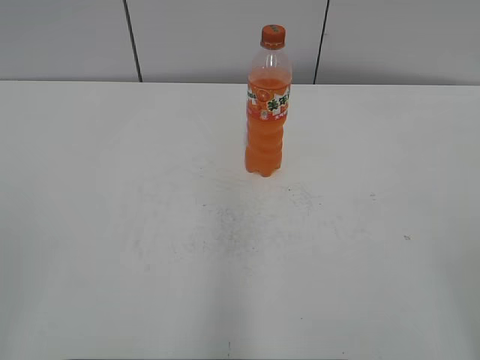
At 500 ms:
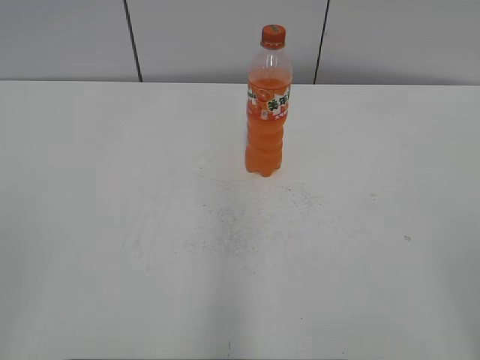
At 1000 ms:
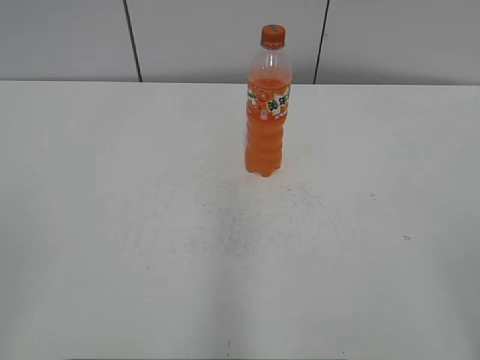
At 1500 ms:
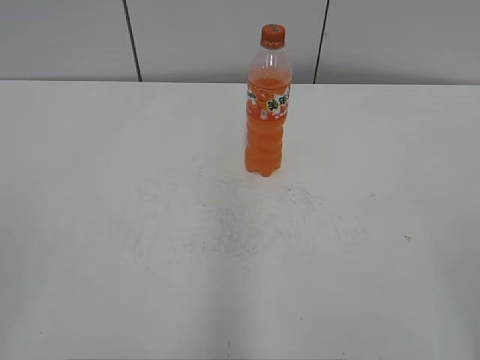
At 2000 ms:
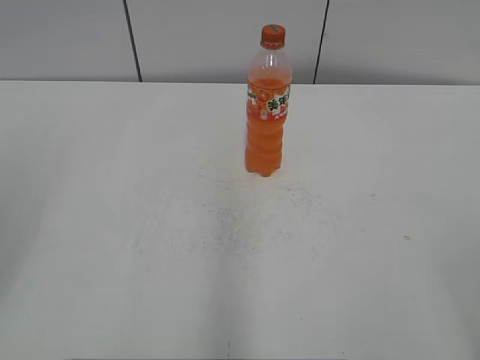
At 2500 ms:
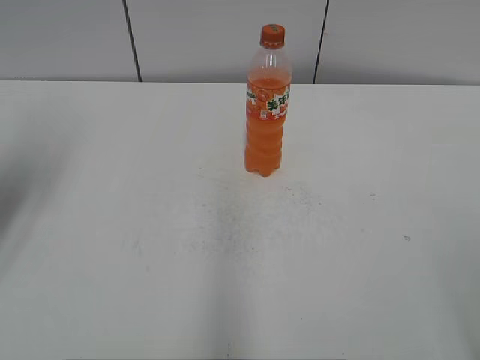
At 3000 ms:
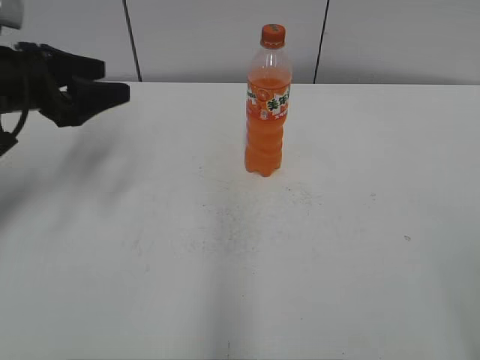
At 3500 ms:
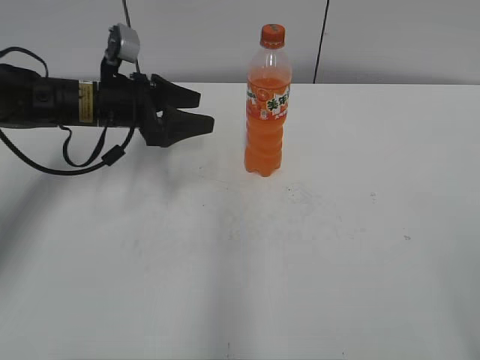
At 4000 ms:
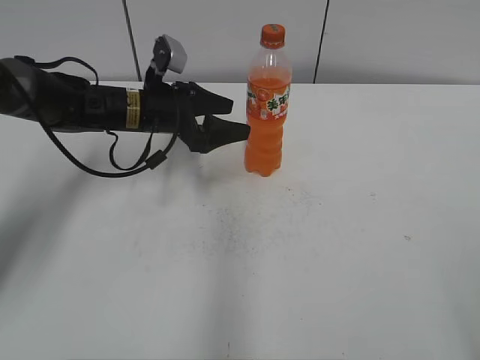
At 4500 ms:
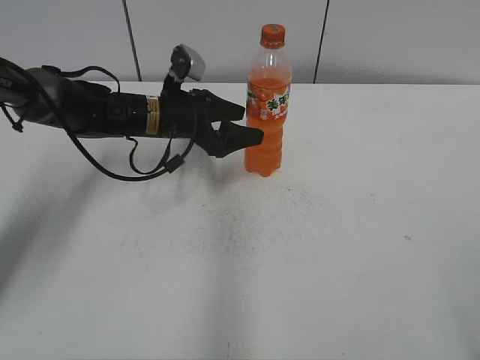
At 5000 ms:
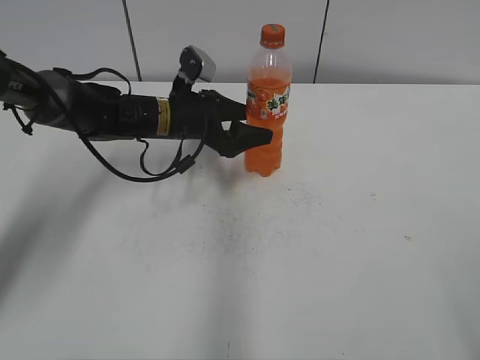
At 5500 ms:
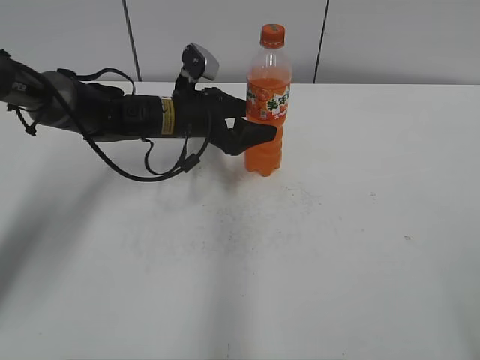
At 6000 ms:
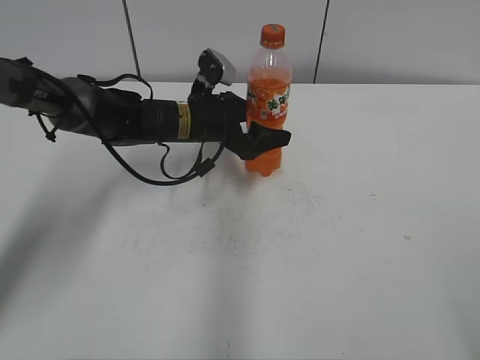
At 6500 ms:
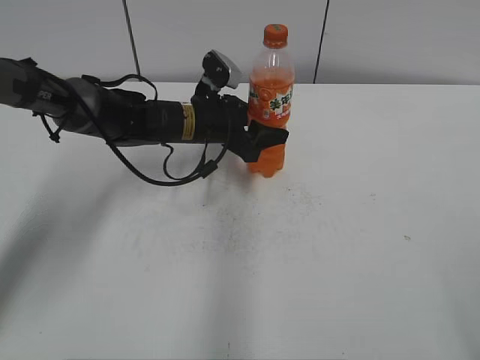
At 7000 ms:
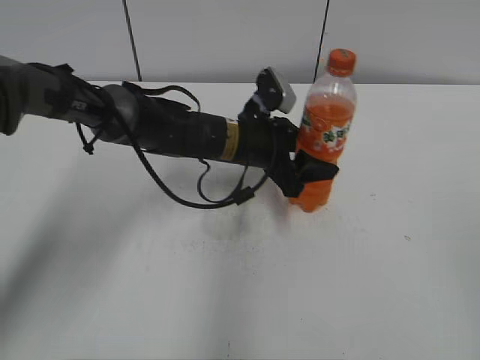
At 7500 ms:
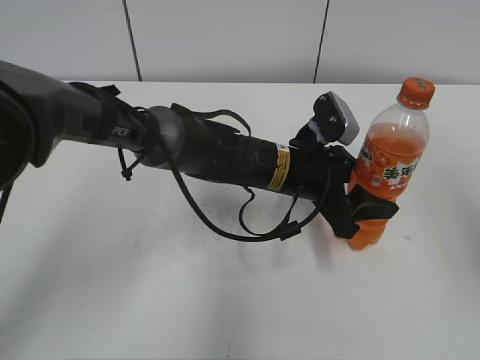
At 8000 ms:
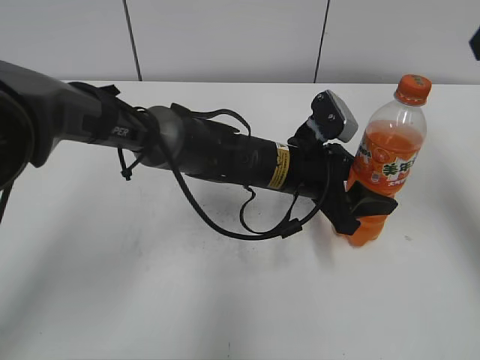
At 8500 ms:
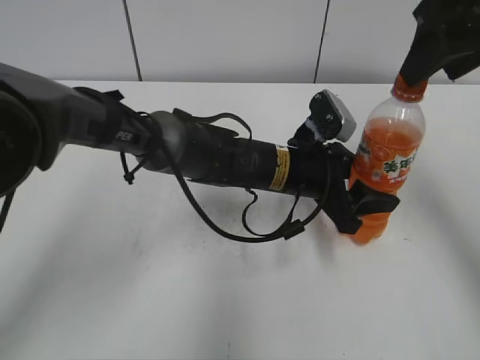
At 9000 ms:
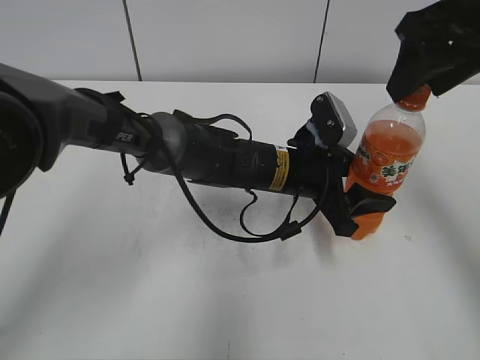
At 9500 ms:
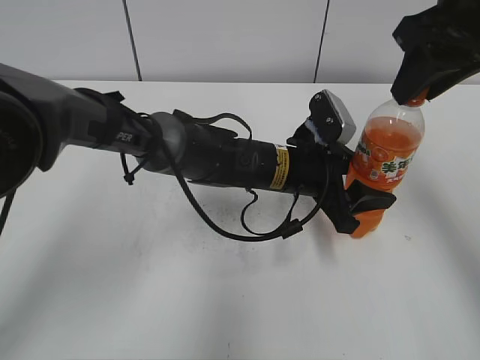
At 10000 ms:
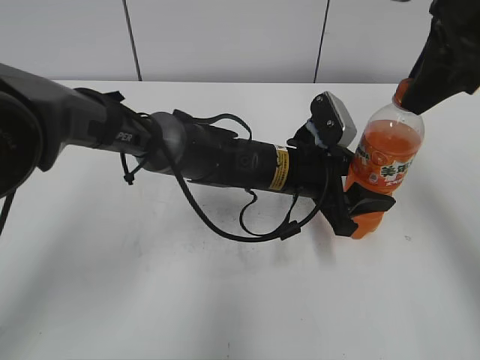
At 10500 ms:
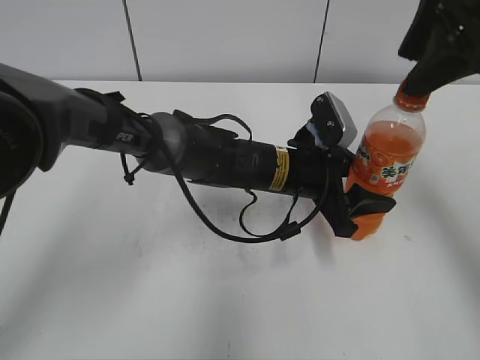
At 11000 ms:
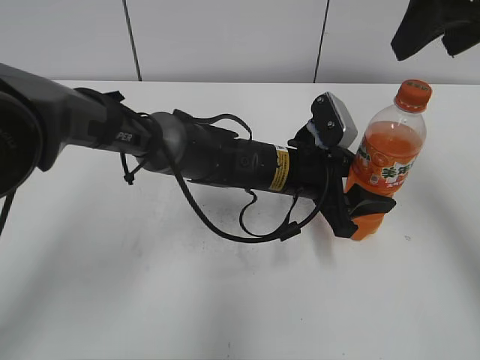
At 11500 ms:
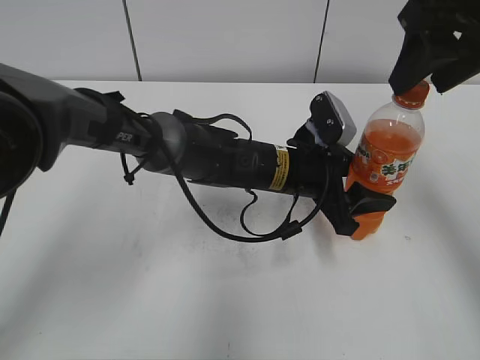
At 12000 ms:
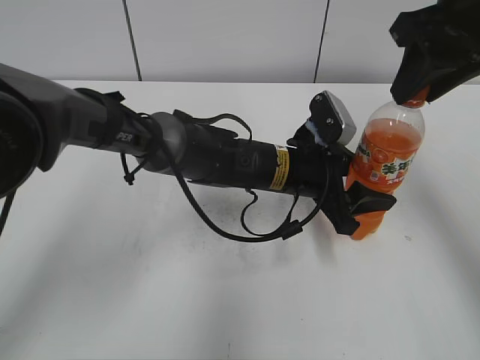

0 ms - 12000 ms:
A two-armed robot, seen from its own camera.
Step, 0 ms - 6000 ms: Grab the Mirinda with the left hand.
Step, 6500 ms - 7000 ms: Move the Mirinda from left to right.
2000 ms - 4000 ms: The left gripper shifts some 40 cm forward, downward and to the right.
4000 ms - 6000 ms: The left gripper travels to the right by roughly 5 cm.
6000 ms - 8000 ms: The left gripper travels to the right and backward by roughly 15 cm, and closes its fingers. Meanwhile the right gripper shifts some 30 cm forward and upward.
8000 ms - 10000 ms: The right gripper moves downward, roughly 5 cm, and closes up.
10000 ms - 12000 ms: The right gripper opens, then closes once more.

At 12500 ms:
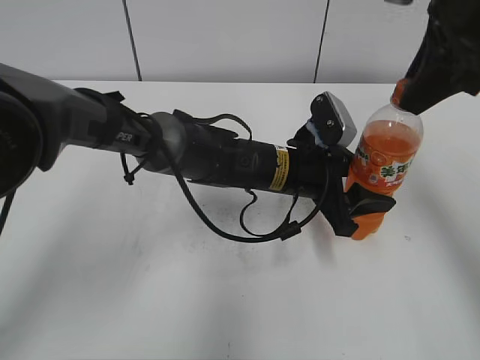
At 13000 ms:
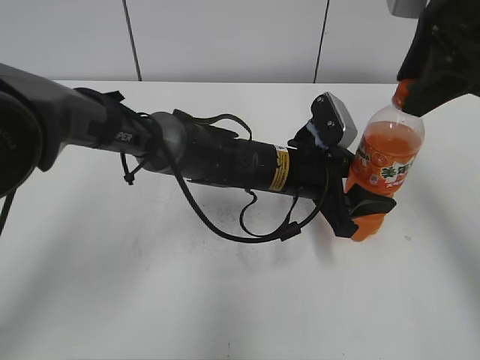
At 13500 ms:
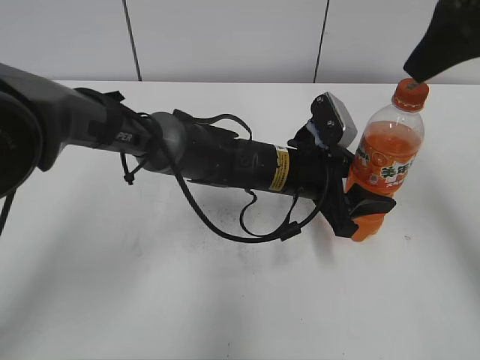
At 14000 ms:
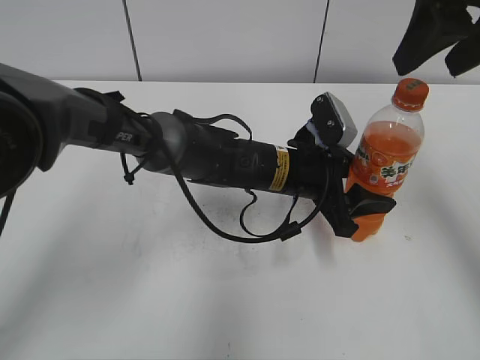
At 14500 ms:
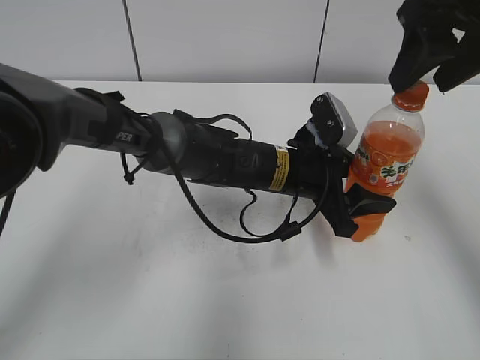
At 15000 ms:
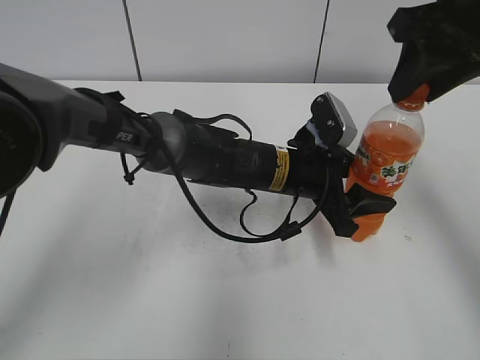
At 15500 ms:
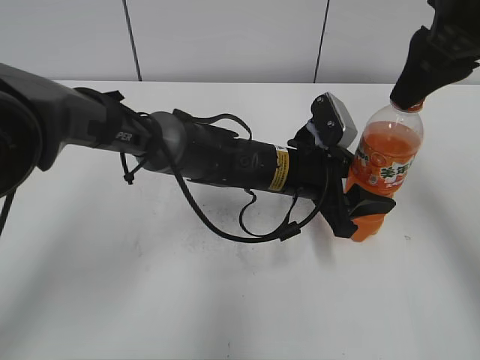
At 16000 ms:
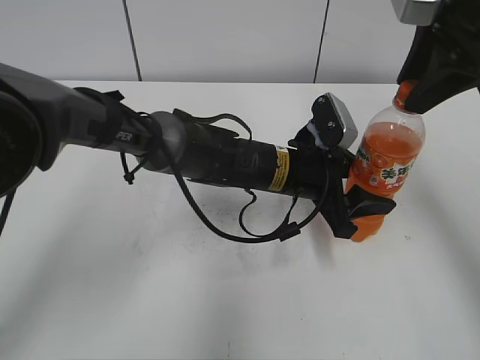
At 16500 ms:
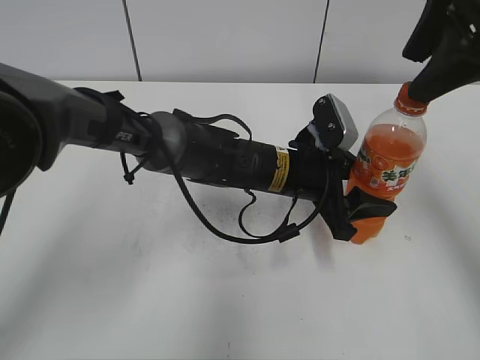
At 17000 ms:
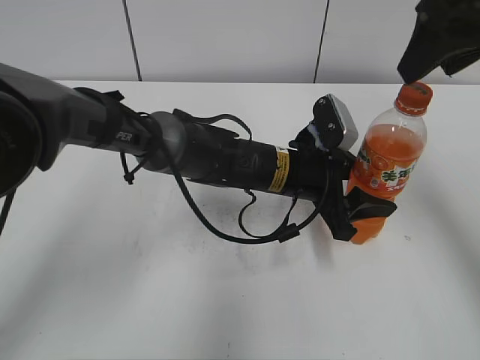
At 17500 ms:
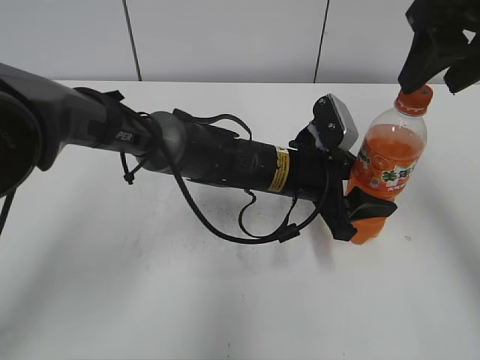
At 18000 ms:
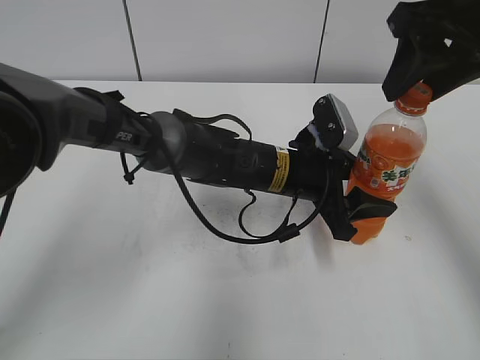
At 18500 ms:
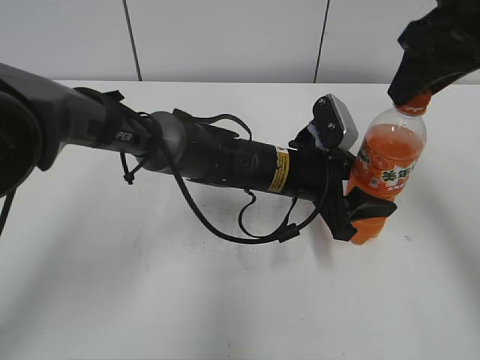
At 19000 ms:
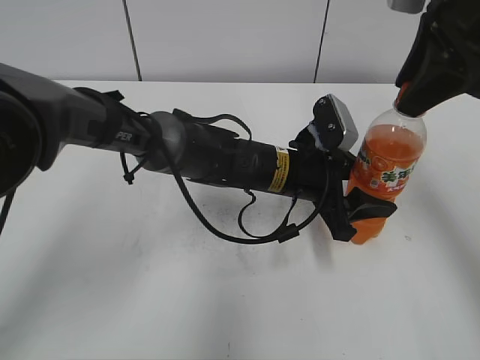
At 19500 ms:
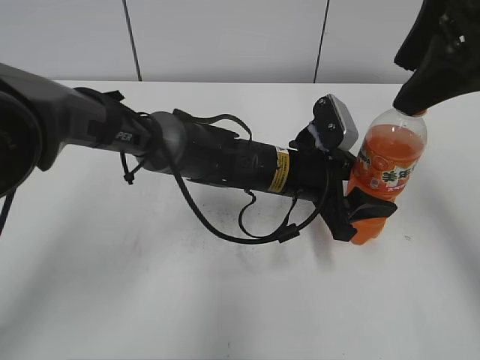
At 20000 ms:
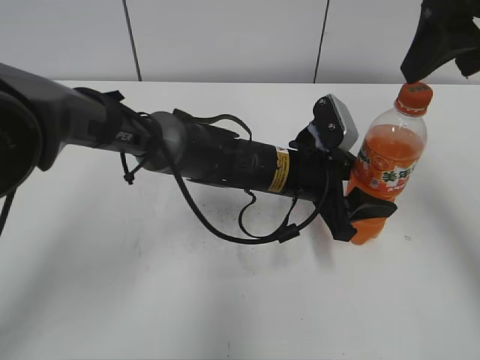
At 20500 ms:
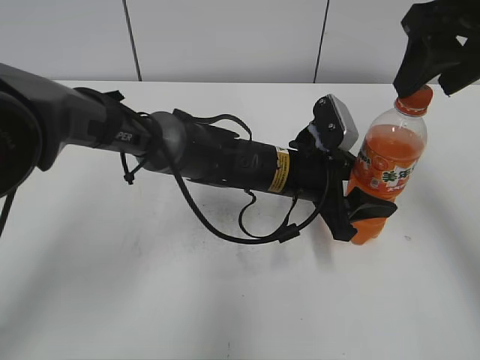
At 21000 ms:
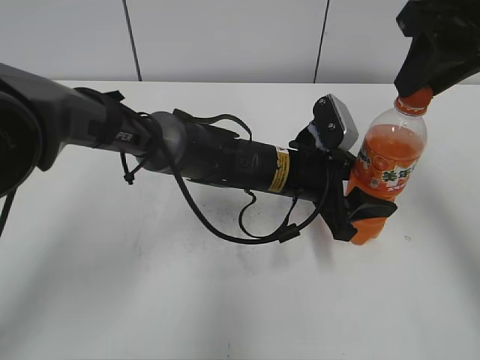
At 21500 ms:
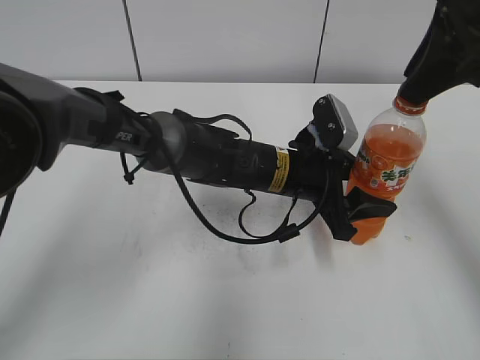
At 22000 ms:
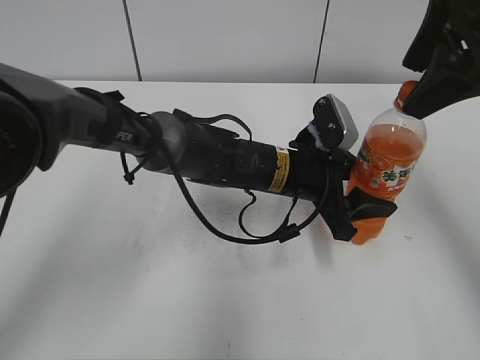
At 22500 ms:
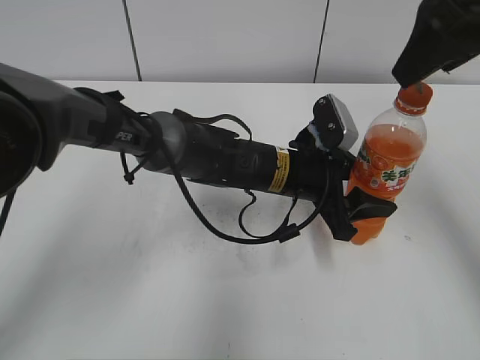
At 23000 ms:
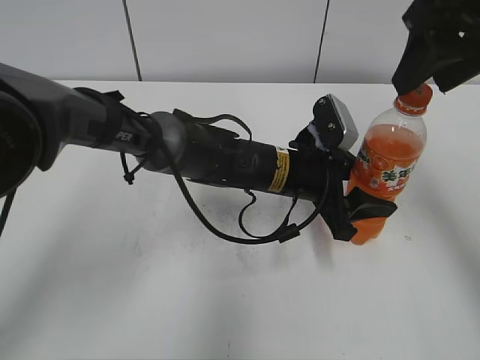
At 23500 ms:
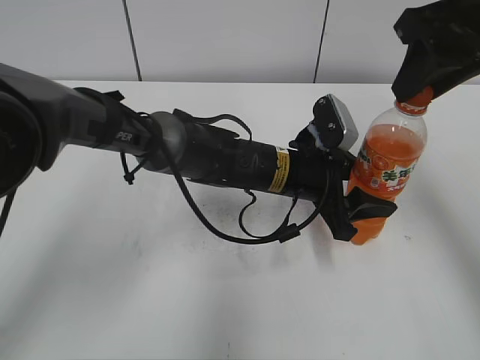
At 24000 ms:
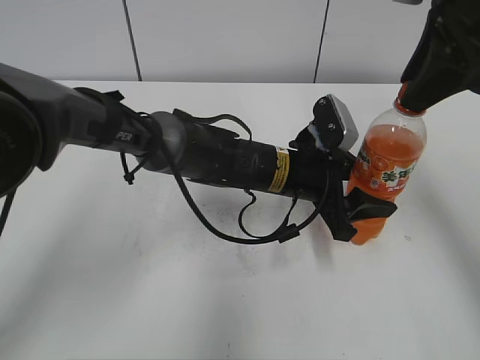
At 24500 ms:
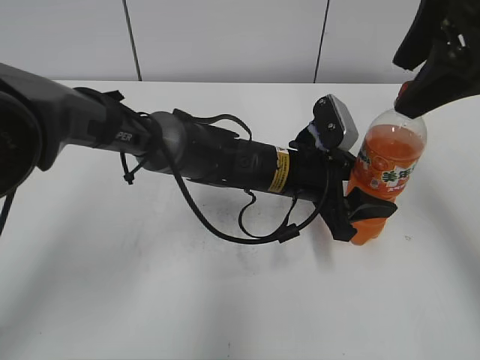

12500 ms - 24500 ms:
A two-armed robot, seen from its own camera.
12500 ms - 14500 ms: The right gripper opens its fingers.
14500 ms - 16500 ms: The right gripper closes, then reopens.
16500 ms - 18500 ms: The right gripper closes its fingers.
18500 ms - 20500 ms: The right gripper opens.
20500 ms - 22500 ms: The right gripper closes and opens again.
22500 ms - 24500 ms: The right gripper closes, then reopens.

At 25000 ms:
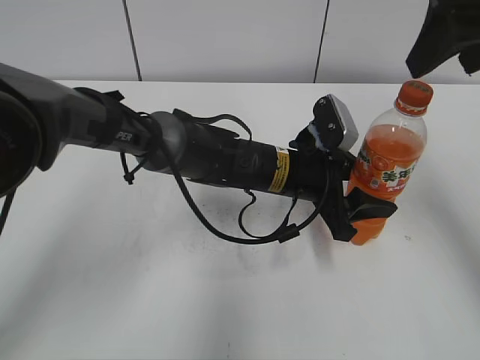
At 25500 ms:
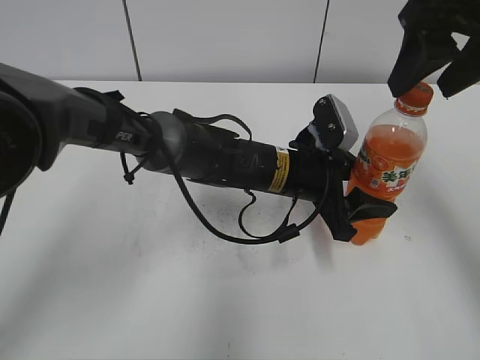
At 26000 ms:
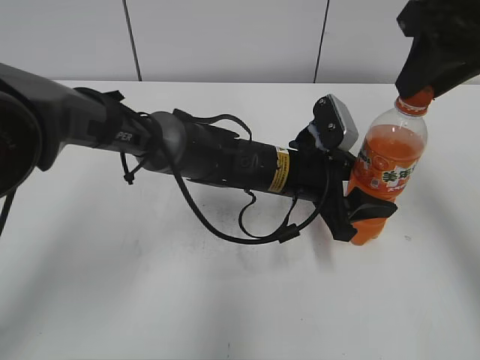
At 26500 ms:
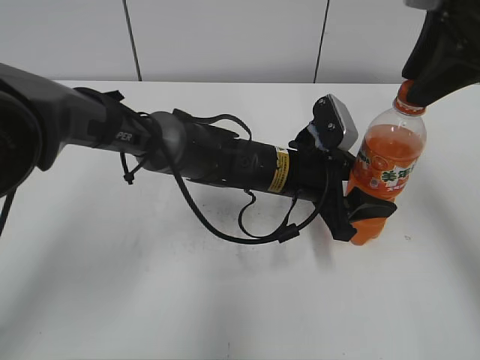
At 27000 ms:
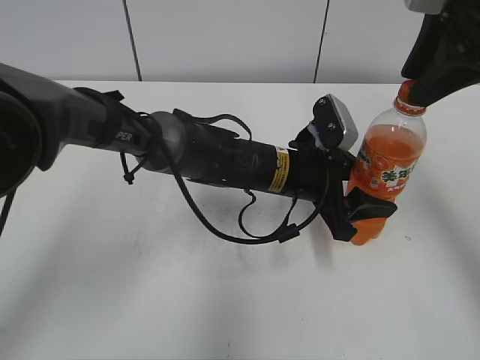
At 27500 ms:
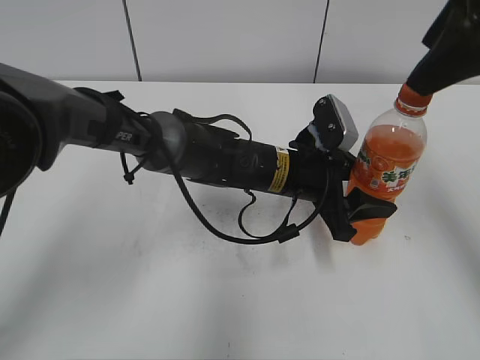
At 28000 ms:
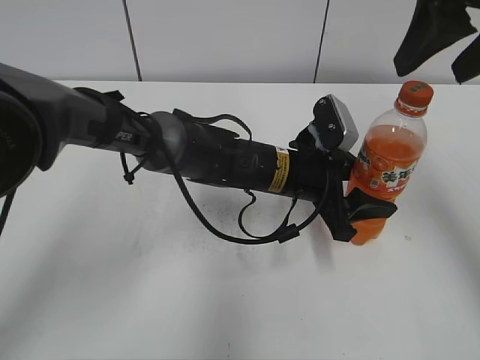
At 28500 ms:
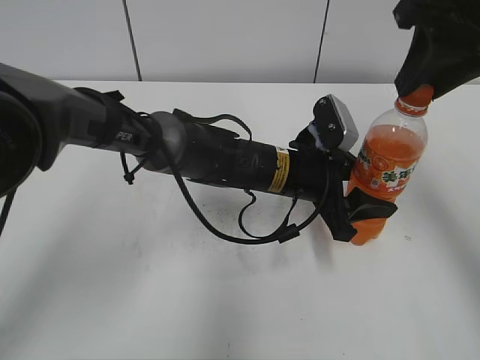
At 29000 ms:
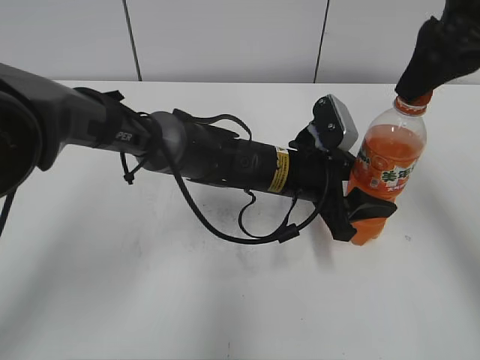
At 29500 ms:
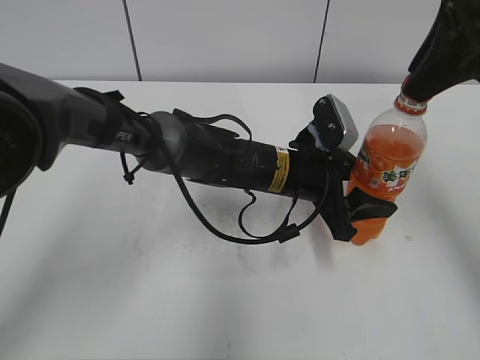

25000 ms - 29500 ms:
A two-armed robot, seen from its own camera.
25000 ms - 27000 ms: The right gripper closes.
27000 ms - 29500 ms: The right gripper opens and closes again.
